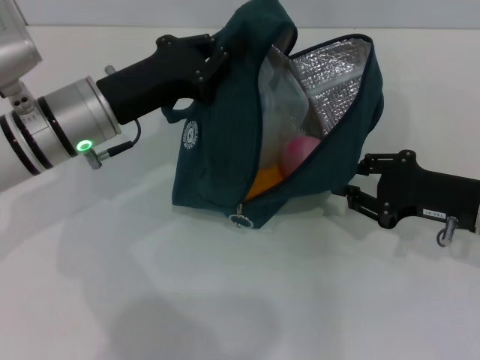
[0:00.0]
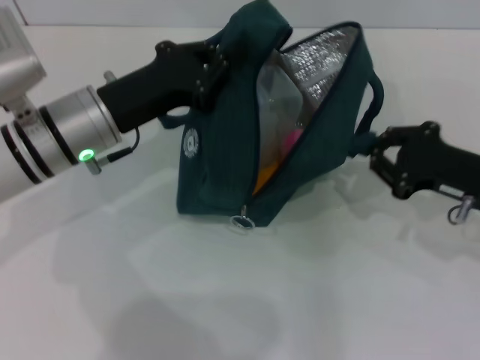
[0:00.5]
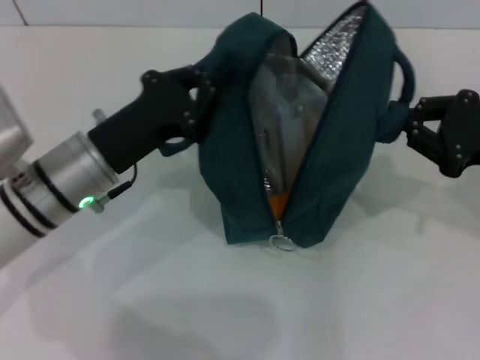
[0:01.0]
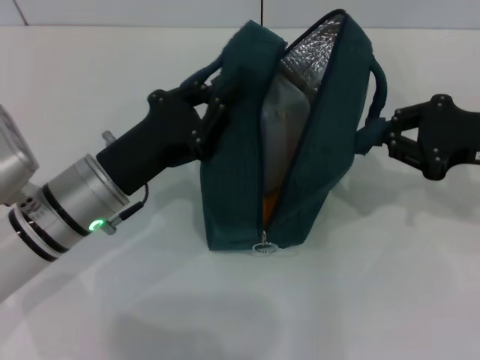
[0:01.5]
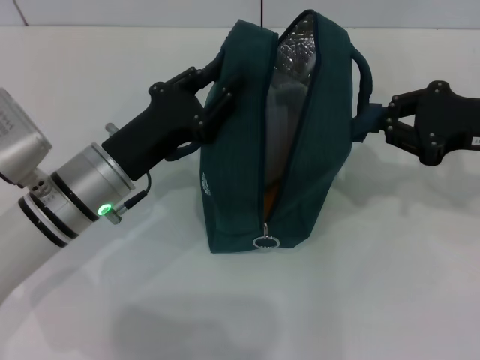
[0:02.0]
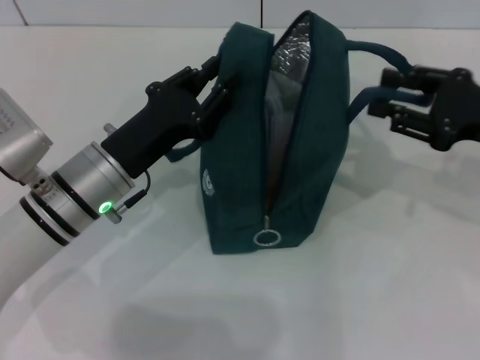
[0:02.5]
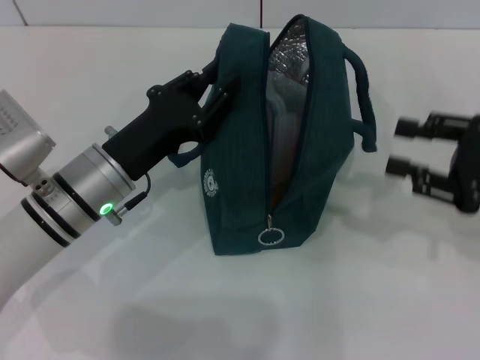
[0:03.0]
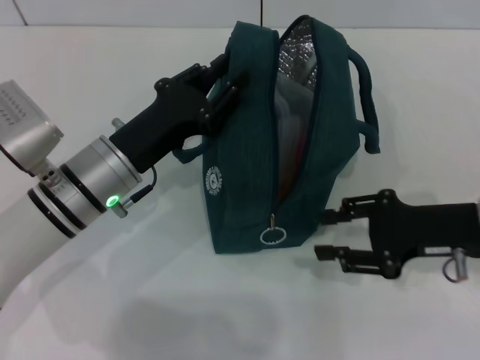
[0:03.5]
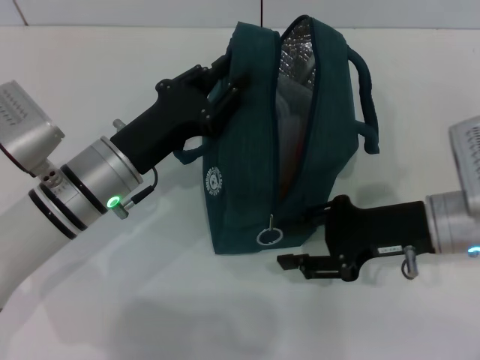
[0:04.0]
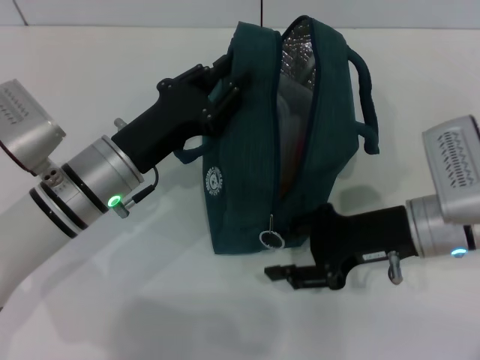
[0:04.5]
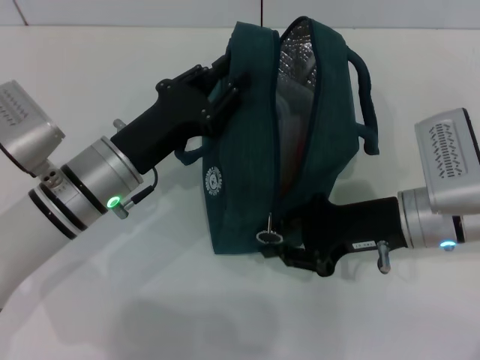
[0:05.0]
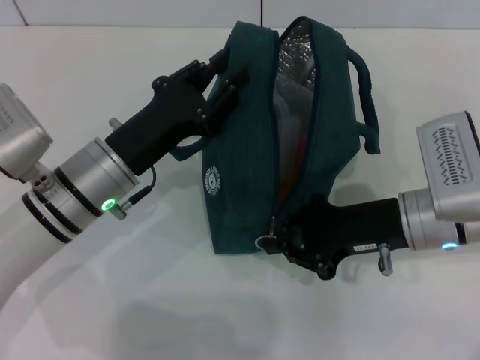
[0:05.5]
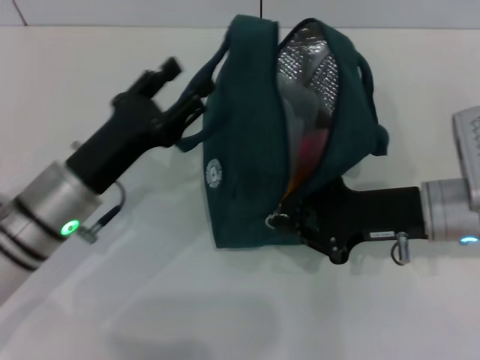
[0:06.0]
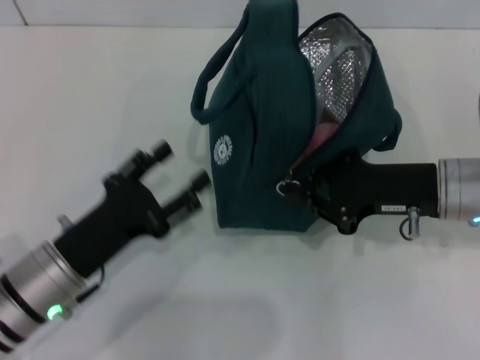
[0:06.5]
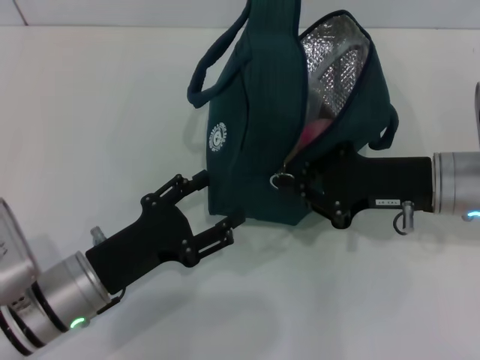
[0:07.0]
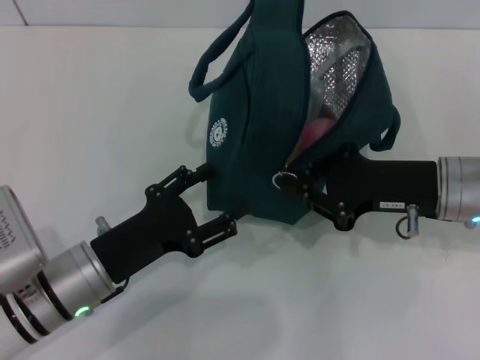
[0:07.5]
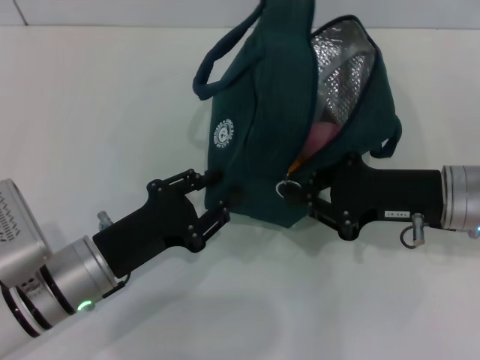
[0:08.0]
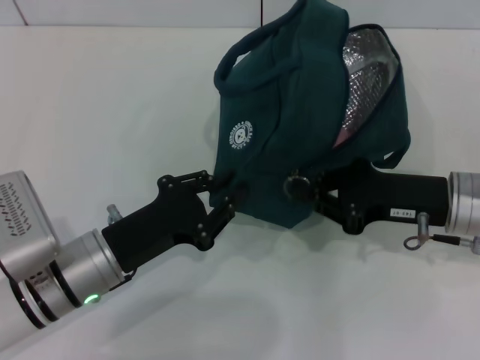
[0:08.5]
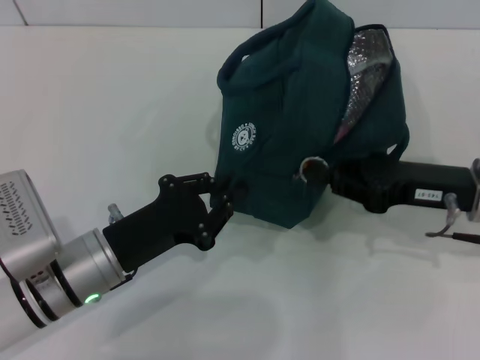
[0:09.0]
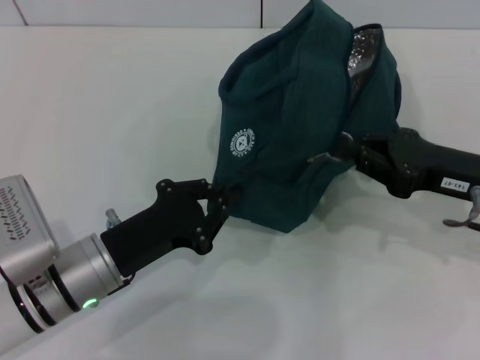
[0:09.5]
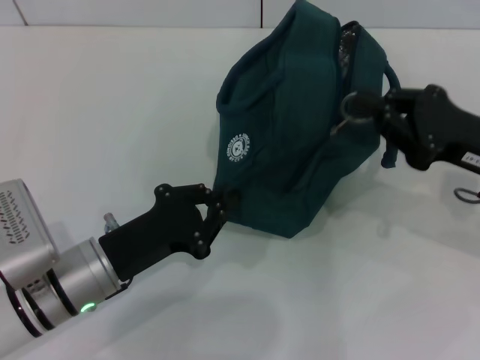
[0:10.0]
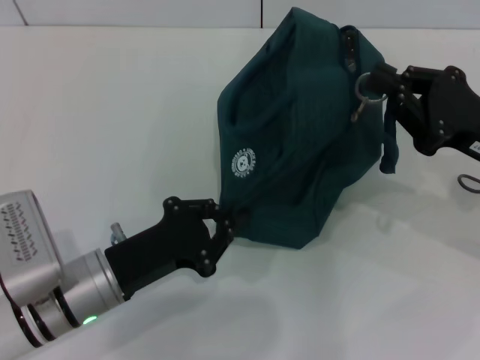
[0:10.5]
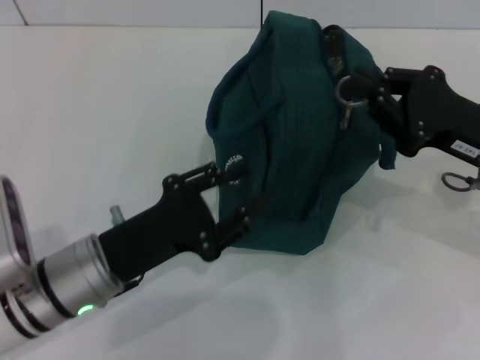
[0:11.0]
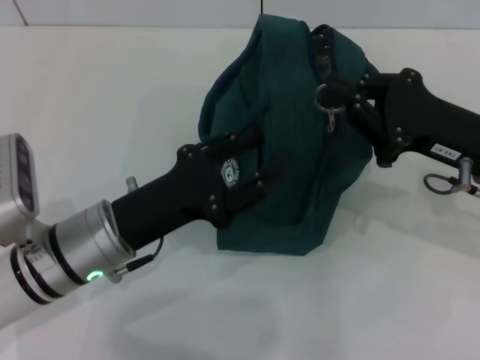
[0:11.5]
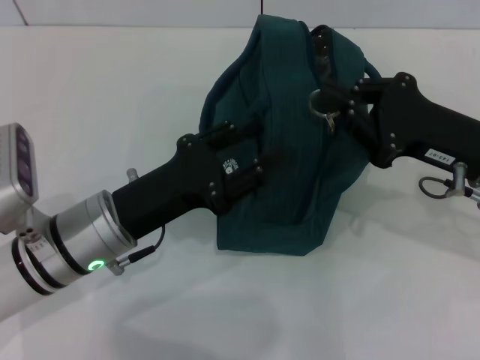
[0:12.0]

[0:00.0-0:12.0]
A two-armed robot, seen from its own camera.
Step, 0:00.0 to 0:02.5: Hold the lunch bag with your right hand.
Step, 0:03.0 to 0:06.0: Hold the lunch bag with your left hand.
0:00.0 to 0:02.0: The left gripper ends up some 5 cm from where it was; the right gripper moves upward, roughly 10 cm.
0:02.0 to 0:04.0: The right gripper is displaced to the left and downward by approximately 10 cm, and opens up.
0:04.0 to 0:06.0: The right gripper closes up.
0:06.0 to 0:08.0: The left gripper moves roughly 5 cm.
0:08.0 to 0:10.0: The left gripper closes. Meanwhile the right gripper changes place by roughly 5 cm.
0:10.0 to 0:12.0: The left gripper changes place by some 5 cm, and opens its fingers.

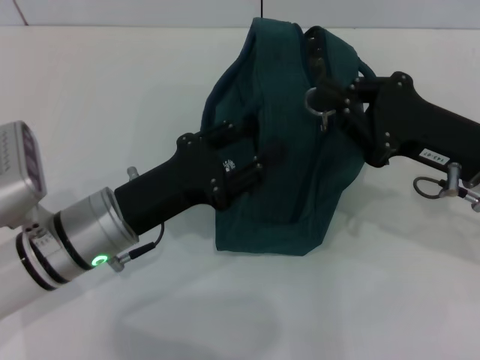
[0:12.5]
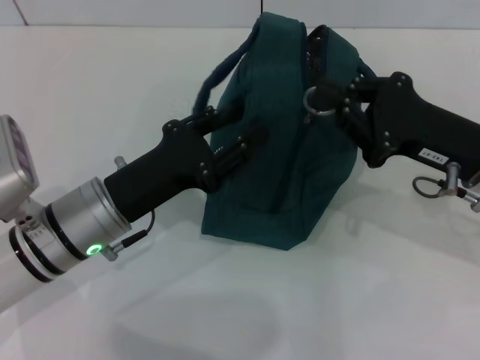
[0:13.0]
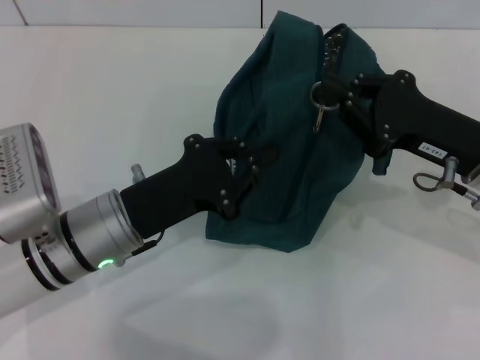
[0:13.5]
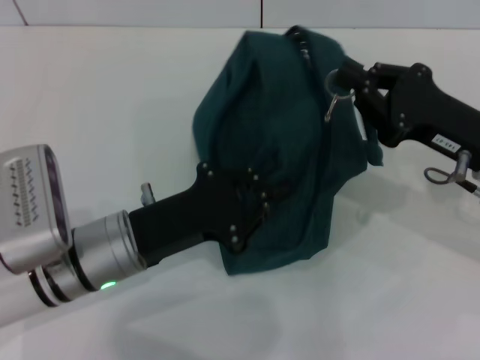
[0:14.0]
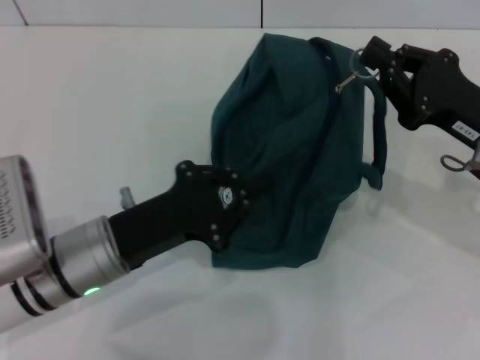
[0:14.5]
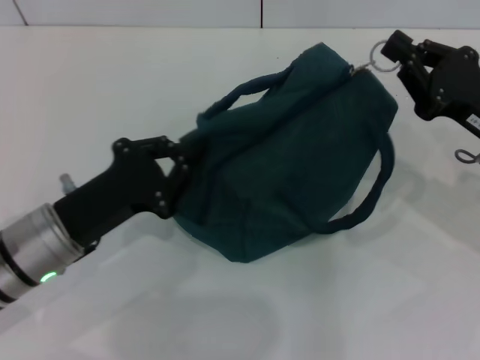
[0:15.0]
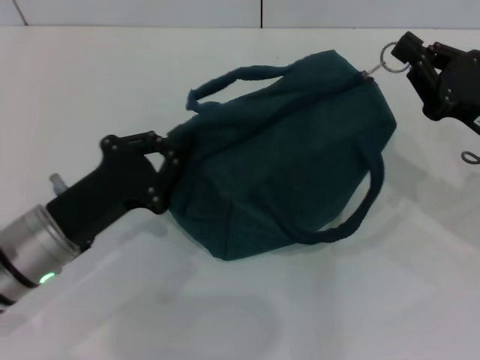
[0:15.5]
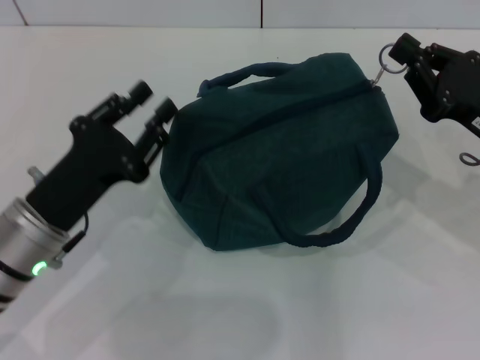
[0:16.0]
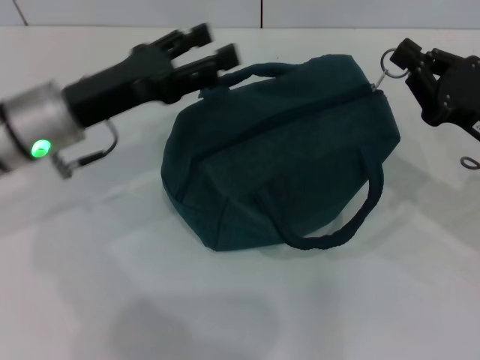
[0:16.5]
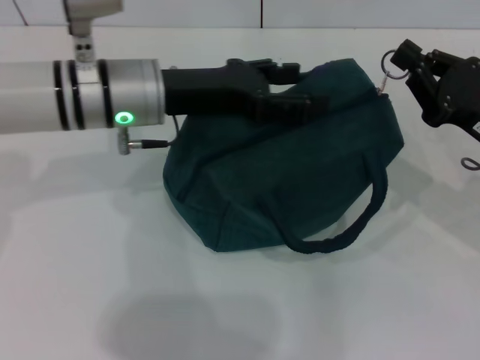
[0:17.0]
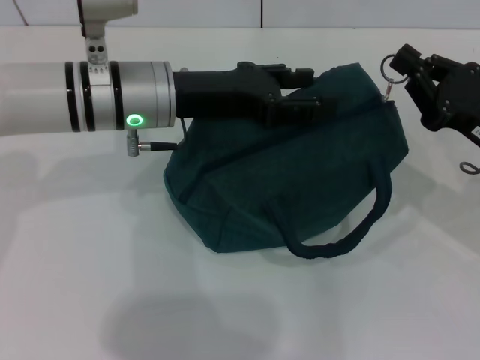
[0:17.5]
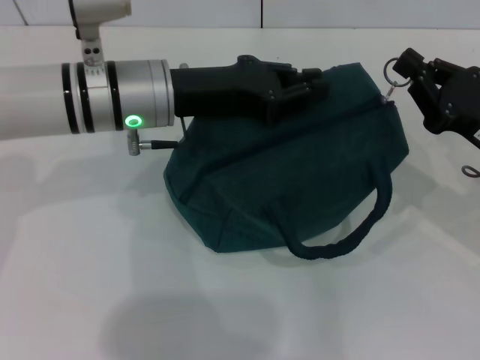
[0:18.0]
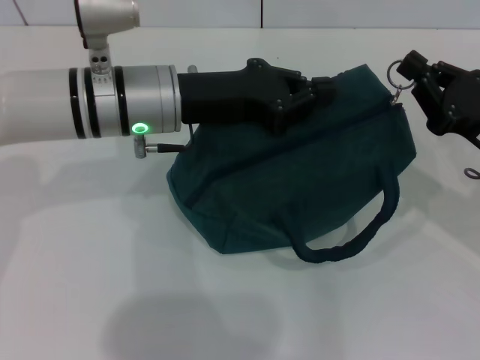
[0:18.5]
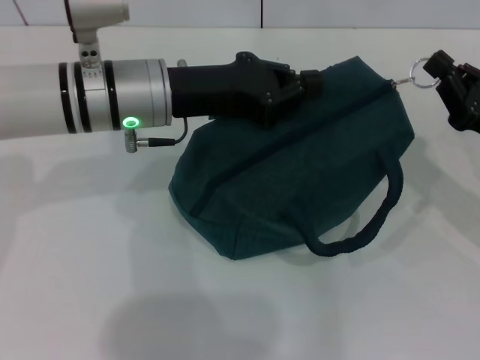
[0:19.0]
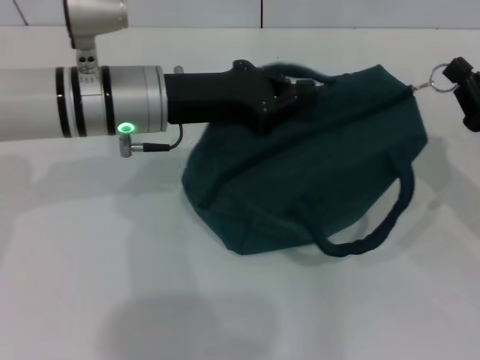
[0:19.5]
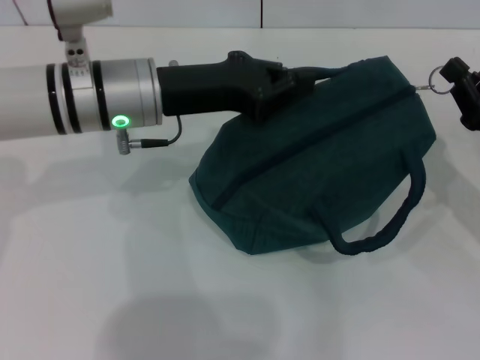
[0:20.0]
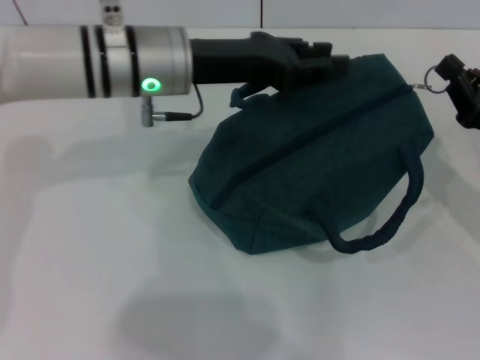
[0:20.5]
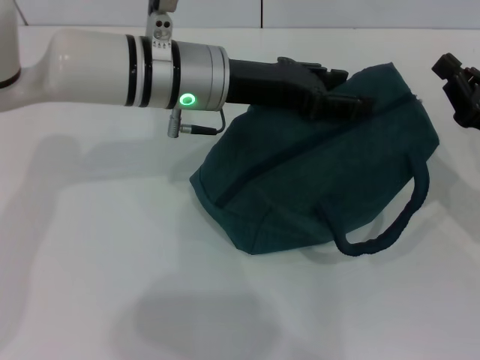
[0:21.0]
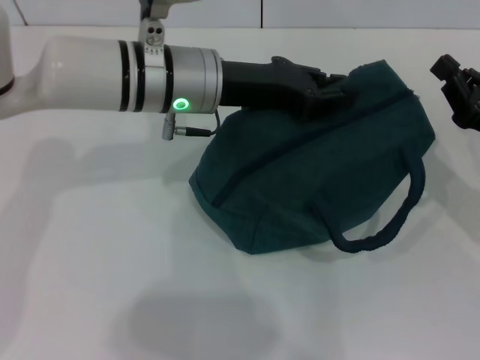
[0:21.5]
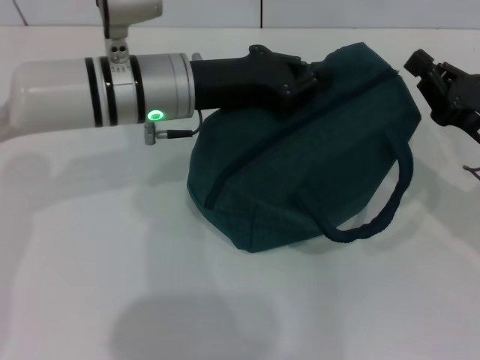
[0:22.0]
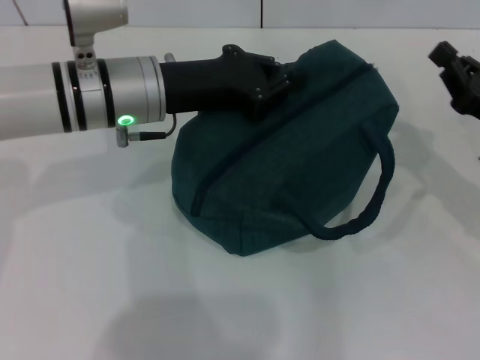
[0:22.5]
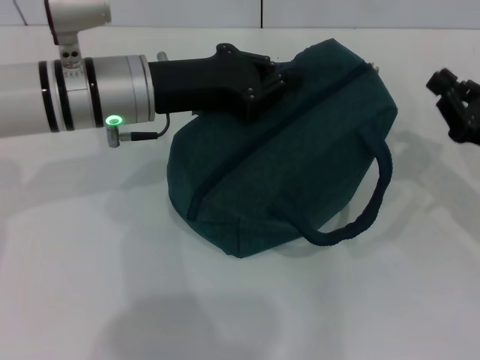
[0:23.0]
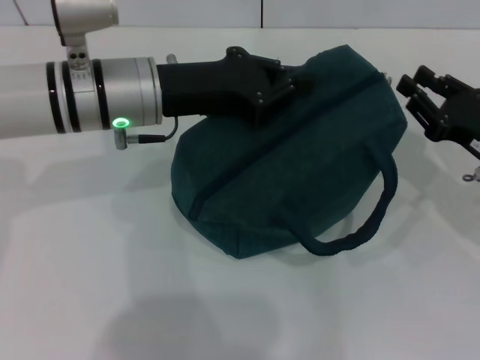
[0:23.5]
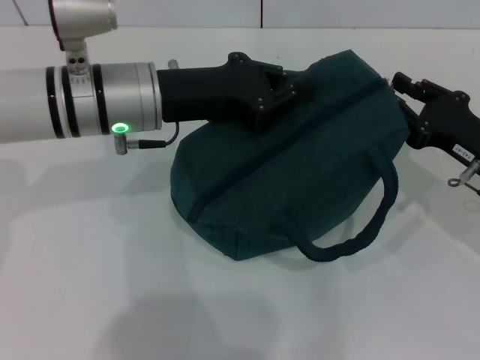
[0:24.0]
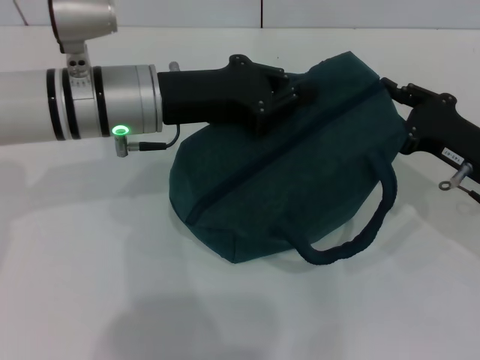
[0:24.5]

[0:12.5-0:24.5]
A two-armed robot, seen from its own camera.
0:12.5 to 0:14.5: The left gripper closes.
0:14.5 to 0:16.5: The left gripper goes roughly 10 cm forward and upward, and opens its fingers.
0:16.5 to 0:18.5: The left gripper goes about 10 cm to the right, and closes up.
0:20.5 to 0:22.5: The left gripper opens, then closes again.
0:22.5 to 0:24.5: The grippers stay close to where they were, moving slightly.

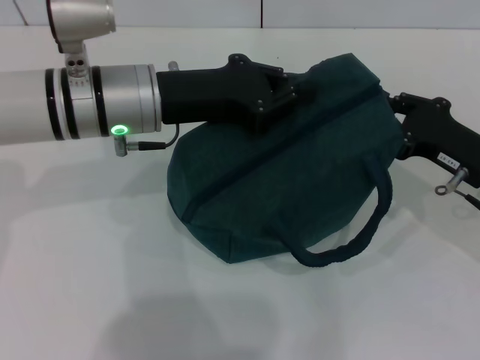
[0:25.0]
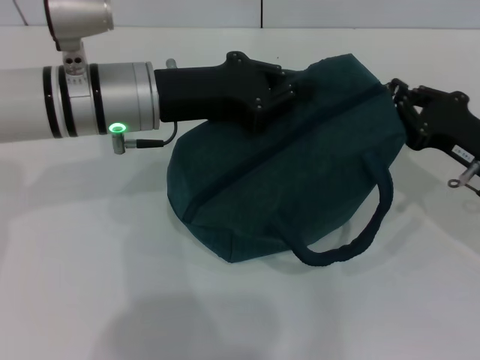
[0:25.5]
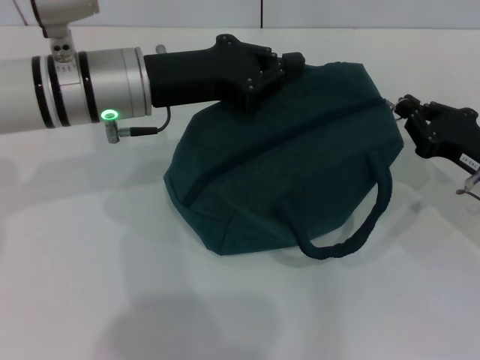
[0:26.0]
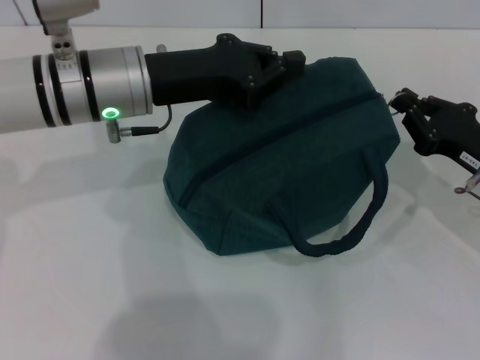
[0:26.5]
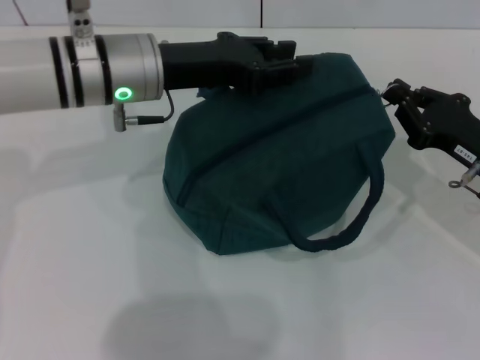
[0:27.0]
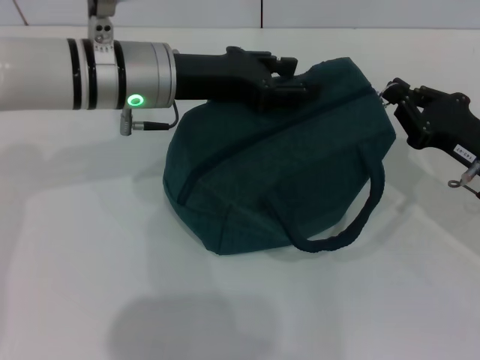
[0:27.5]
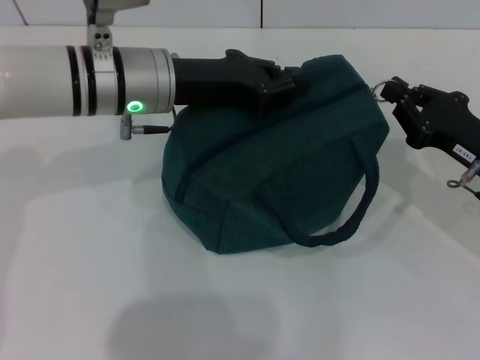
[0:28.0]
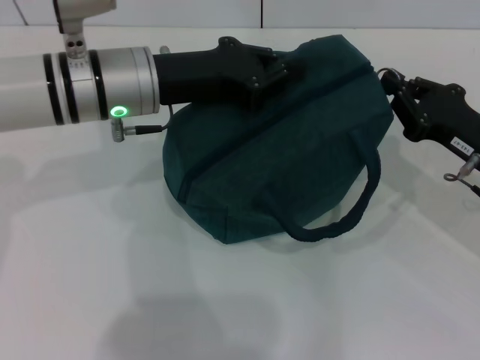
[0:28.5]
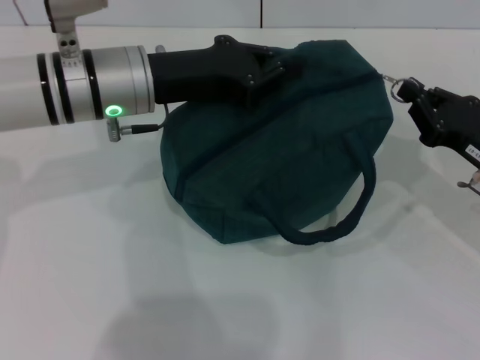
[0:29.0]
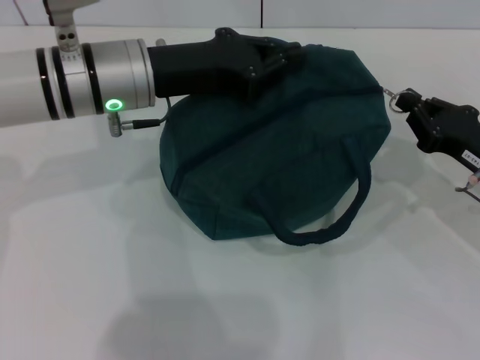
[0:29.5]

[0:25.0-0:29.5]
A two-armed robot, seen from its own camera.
0:25.0 to 0:27.0: The grippers make only small movements.
0:27.0 to 0:29.5: The left gripper opens and closes again.
